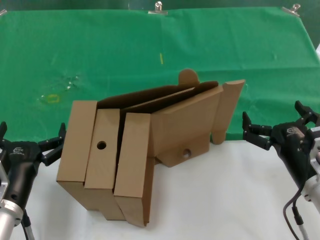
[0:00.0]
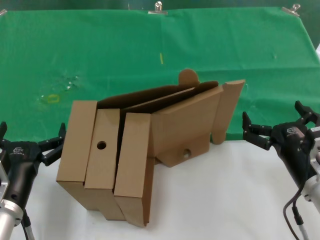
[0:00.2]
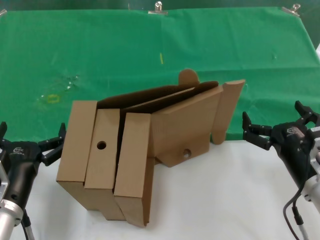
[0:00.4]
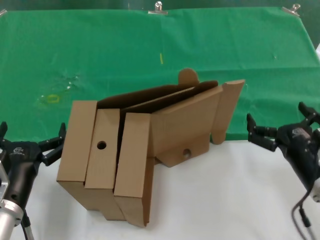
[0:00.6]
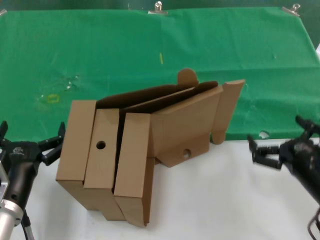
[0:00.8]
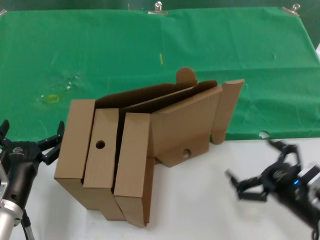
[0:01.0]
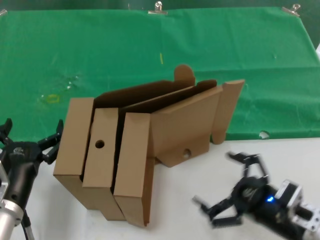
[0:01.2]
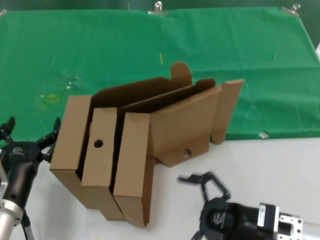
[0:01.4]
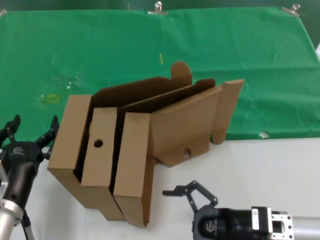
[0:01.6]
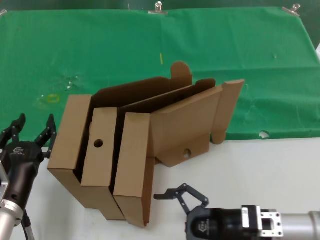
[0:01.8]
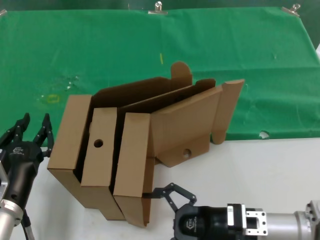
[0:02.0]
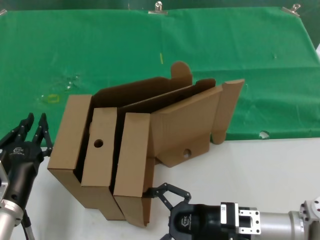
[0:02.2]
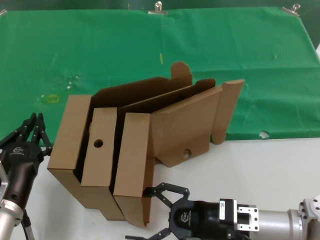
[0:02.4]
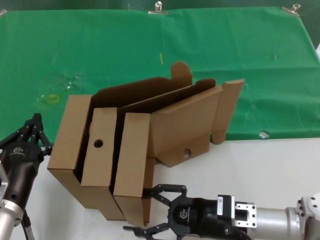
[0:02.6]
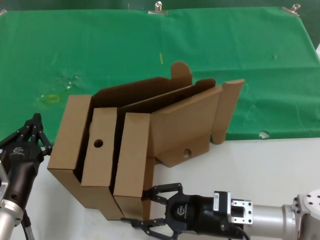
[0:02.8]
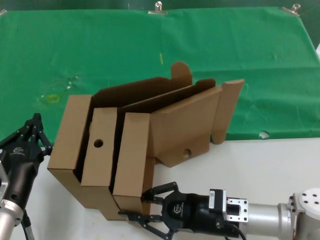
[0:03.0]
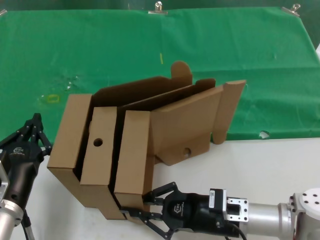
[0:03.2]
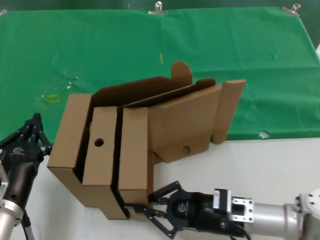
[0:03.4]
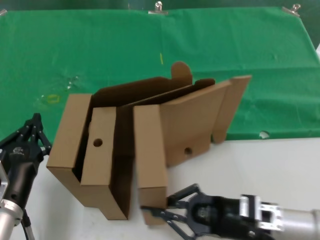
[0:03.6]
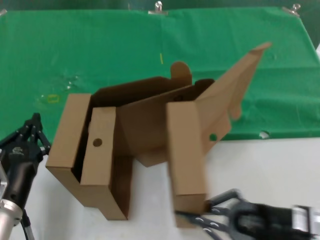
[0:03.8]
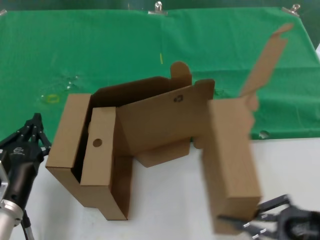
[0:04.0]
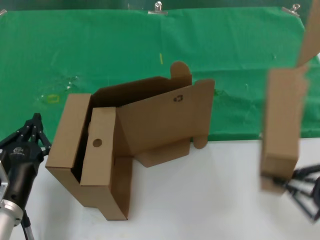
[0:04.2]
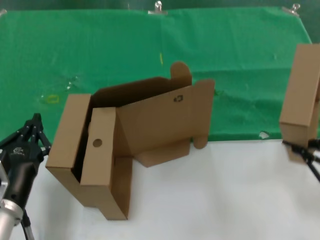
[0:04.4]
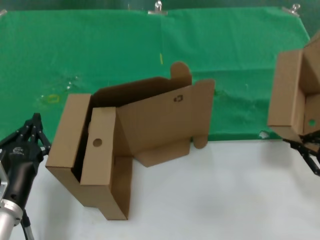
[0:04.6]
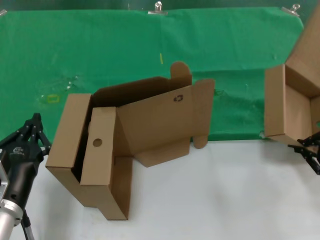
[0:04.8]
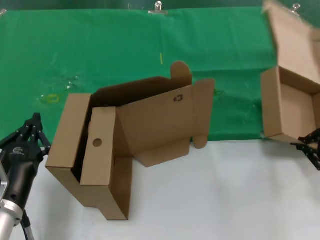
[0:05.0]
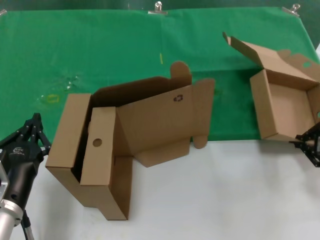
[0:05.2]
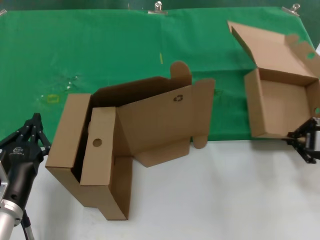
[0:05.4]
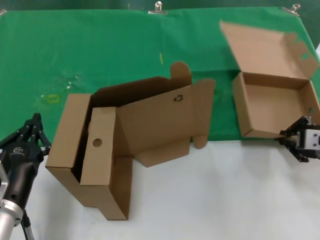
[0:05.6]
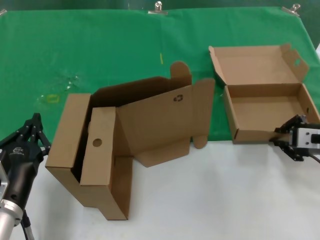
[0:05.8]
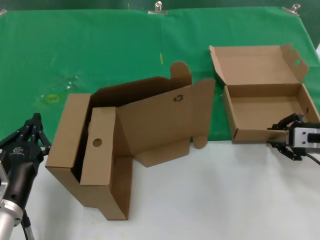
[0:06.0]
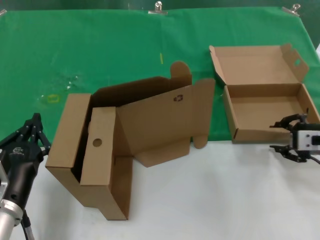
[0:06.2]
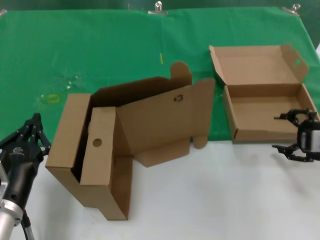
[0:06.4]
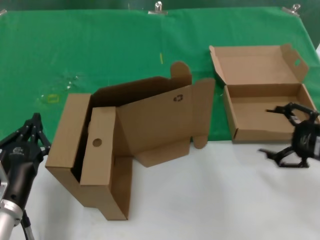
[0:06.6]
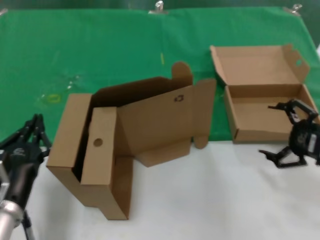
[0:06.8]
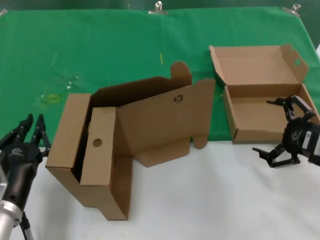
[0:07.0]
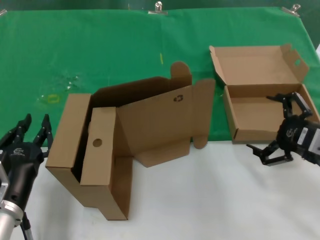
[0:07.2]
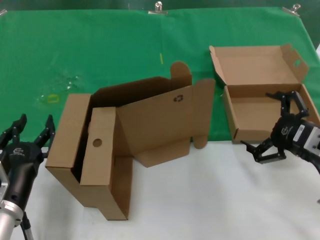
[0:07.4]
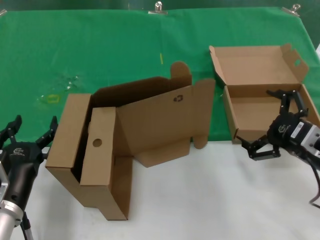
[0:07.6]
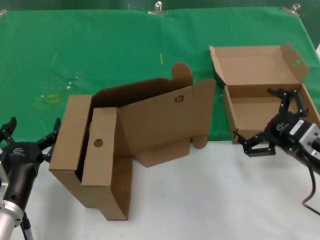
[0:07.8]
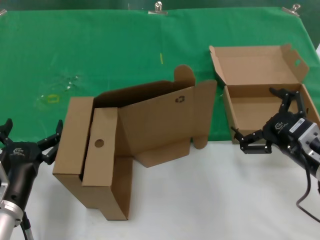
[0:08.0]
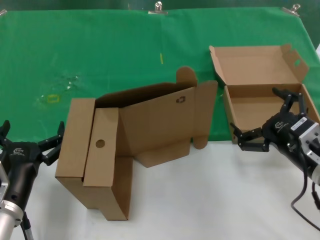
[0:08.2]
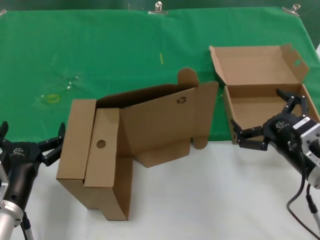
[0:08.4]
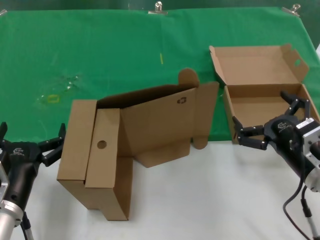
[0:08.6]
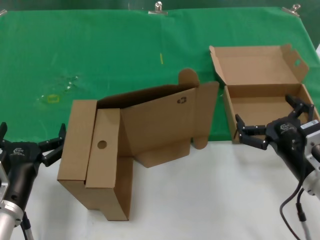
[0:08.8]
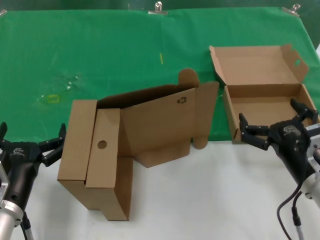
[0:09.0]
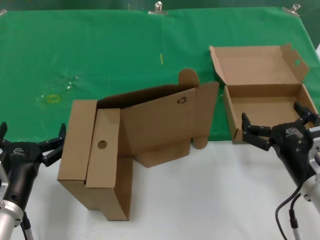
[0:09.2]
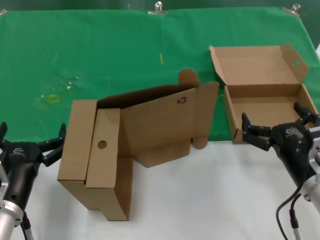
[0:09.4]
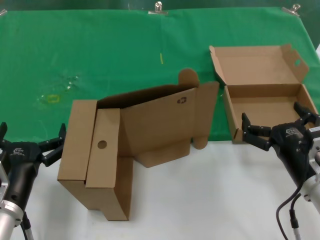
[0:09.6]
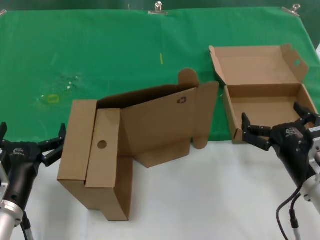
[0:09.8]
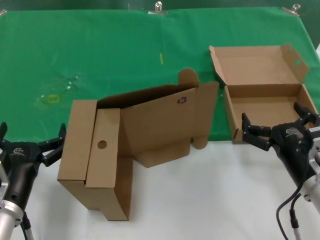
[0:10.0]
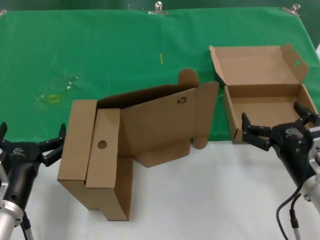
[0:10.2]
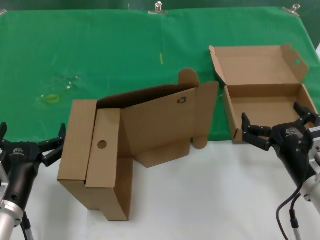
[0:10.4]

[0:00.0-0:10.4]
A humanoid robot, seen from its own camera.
Task of the whole recording: pick up the paper box and put it at the back.
Step, 0:00.0 to 0:03.2: Grasp the paper box.
Step, 0:03.4 to 0:06.0: Place the paper box on the table.
0:01.4 to 0:03.0: The right hand is displaced forward and to the left by some 10 cm.
0:03.0 to 0:04.4: The right hand shifts about 30 cm to the right, upward and backward.
0:04.4 to 0:06.0: The right hand moves forward, roughly 20 cm.
0:06.0 to 0:07.4: The right hand goes roughly 10 cm backward.
0:07.4 to 0:09.0: The right hand moves to the left and downward, approximately 10 cm.
0:09.0 to 0:10.4: There are only small adjustments of the hands.
